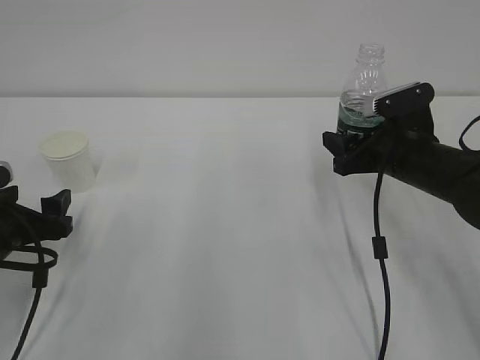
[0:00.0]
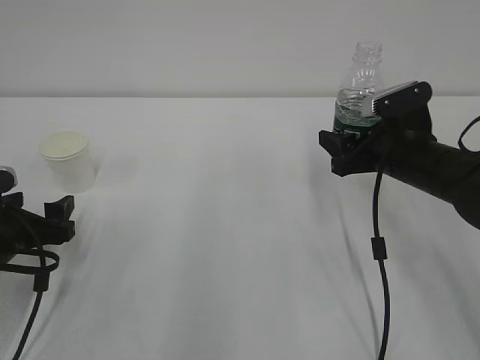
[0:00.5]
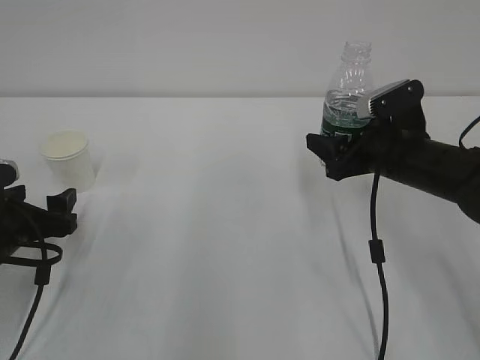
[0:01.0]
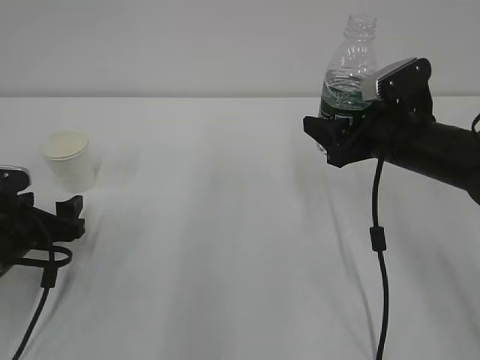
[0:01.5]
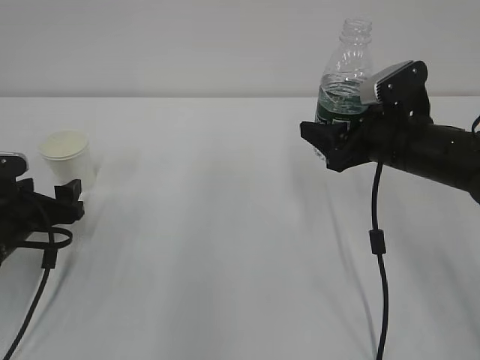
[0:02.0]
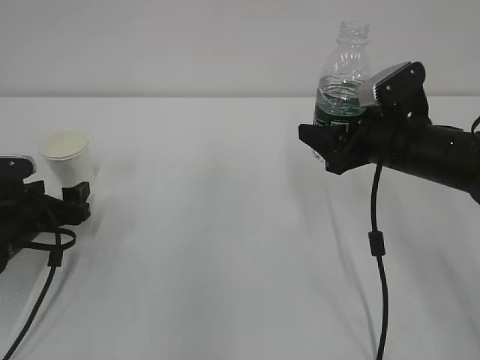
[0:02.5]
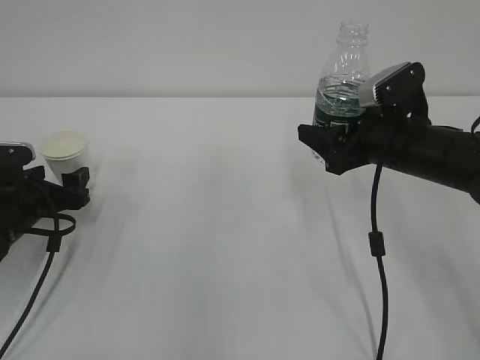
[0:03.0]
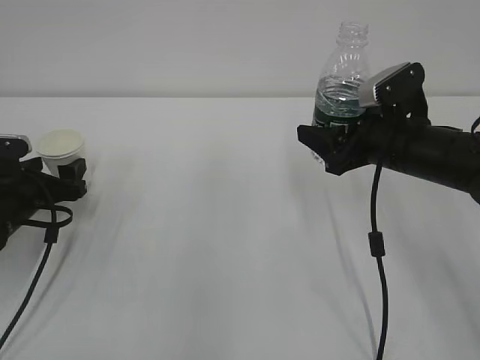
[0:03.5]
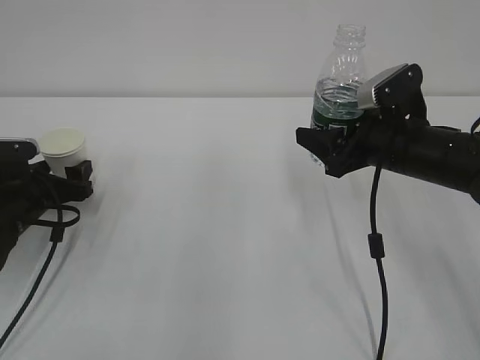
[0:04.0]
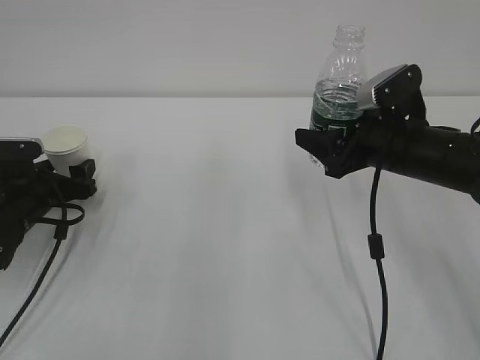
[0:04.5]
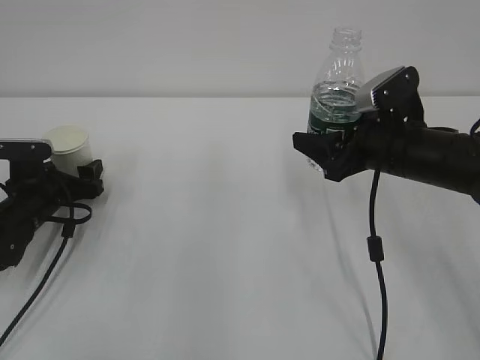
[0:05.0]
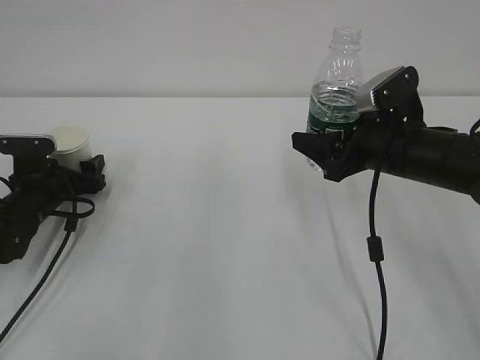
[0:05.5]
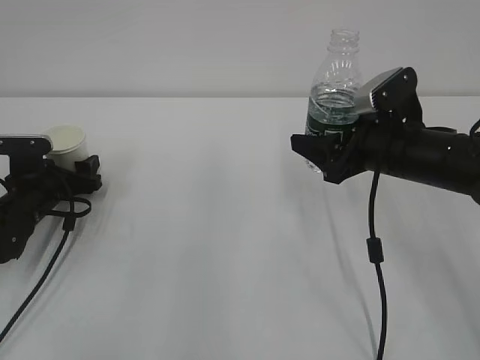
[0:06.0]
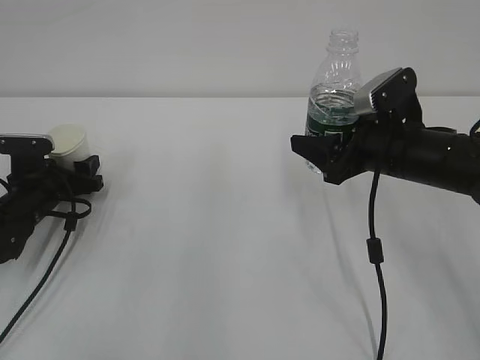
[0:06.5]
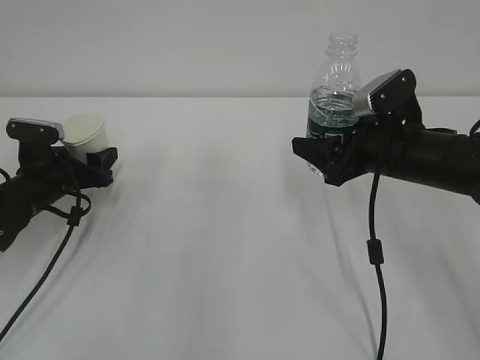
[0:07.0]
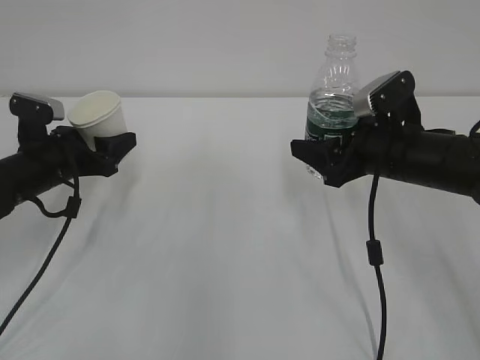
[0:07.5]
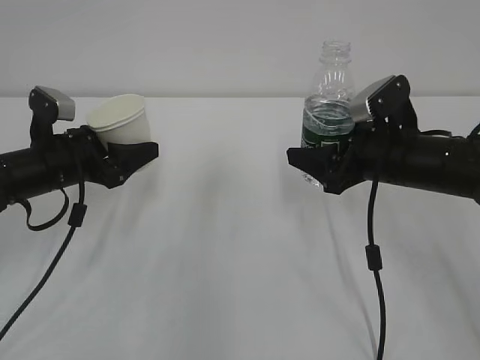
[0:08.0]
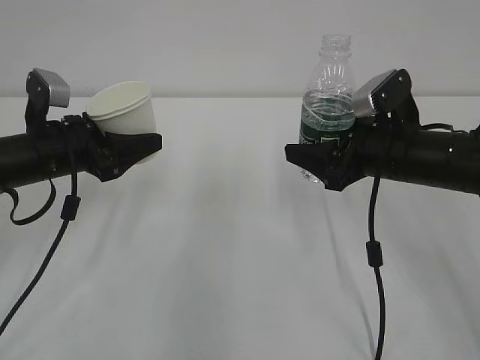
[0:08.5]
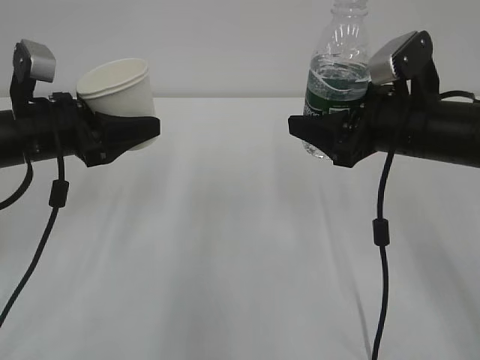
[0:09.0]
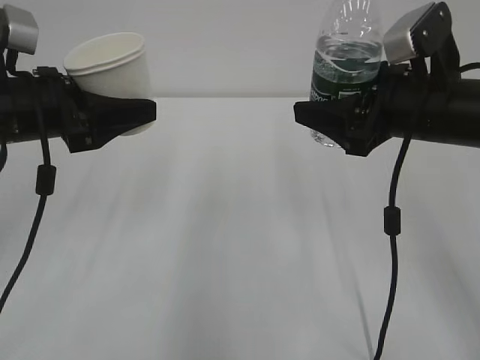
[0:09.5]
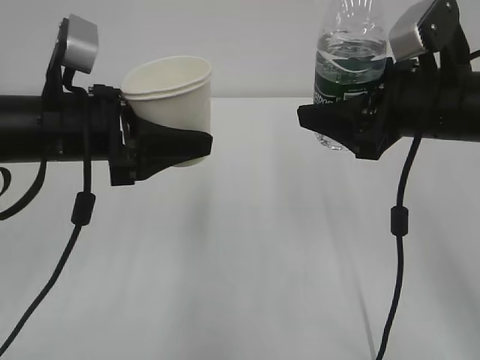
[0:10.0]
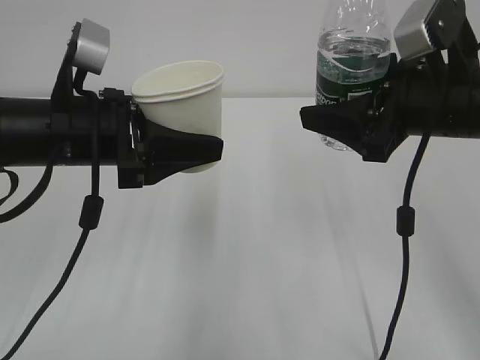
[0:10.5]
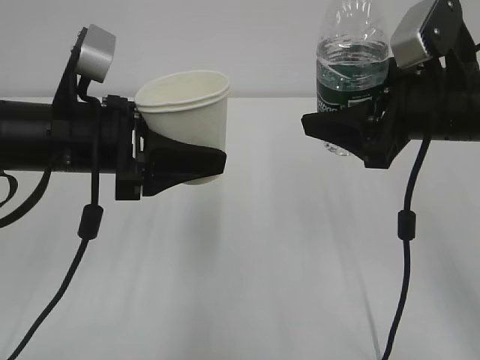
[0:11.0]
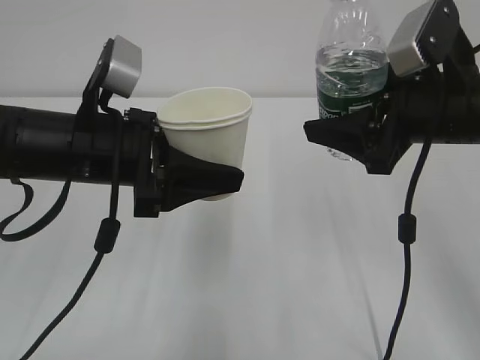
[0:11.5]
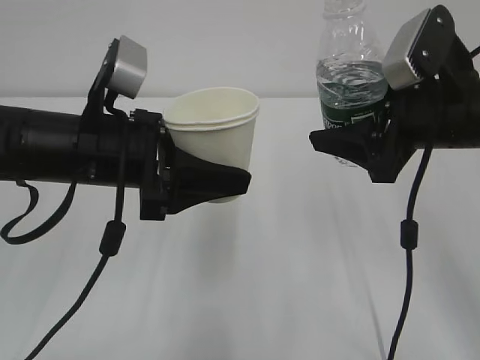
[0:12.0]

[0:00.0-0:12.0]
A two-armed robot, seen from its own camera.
0:00.0 to 0:02.0: The left gripper moves about 5 cm.
0:02.0 to 0:04.0: The left gripper travels forward by about 5 cm.
0:04.0 to 0:06.0: The grippers make only small movements.
0:06.0 to 0:08.0: The left gripper heads upward and to the right, covering about 10 cm.
0:08.0 to 0:10.0: The left gripper goes some 15 cm upward, to the right and backward, while the right gripper goes about 10 cm upward.

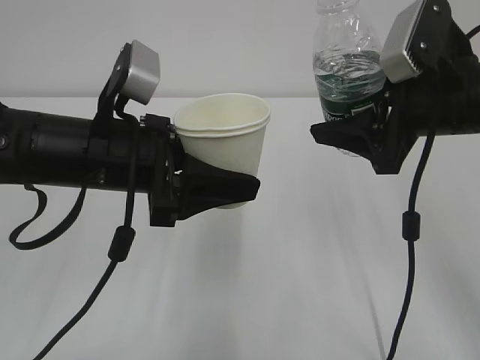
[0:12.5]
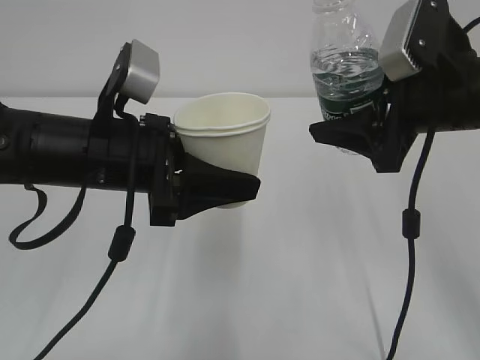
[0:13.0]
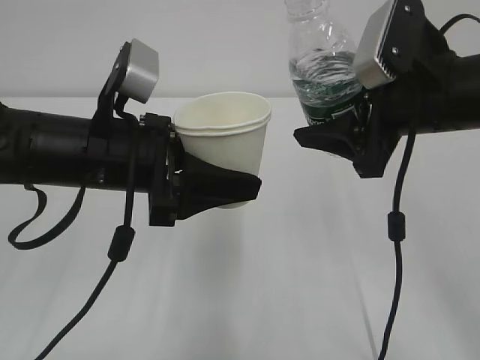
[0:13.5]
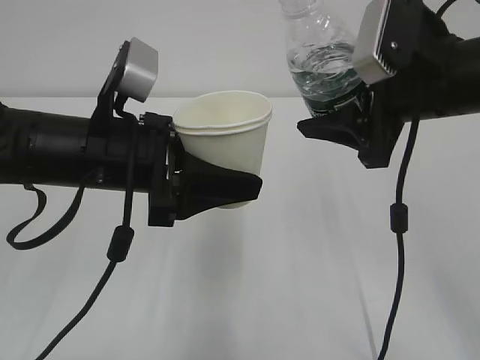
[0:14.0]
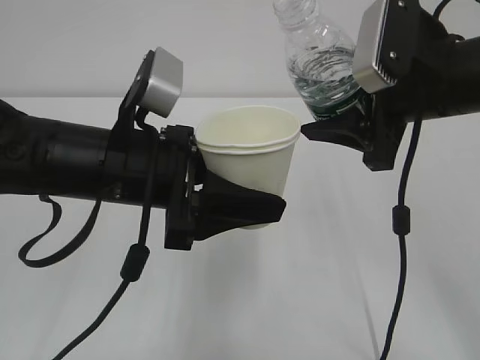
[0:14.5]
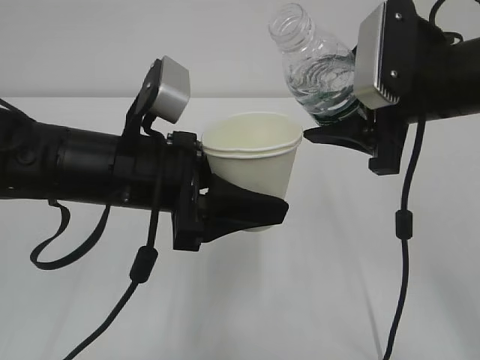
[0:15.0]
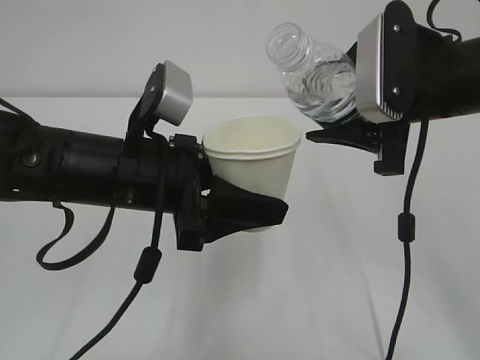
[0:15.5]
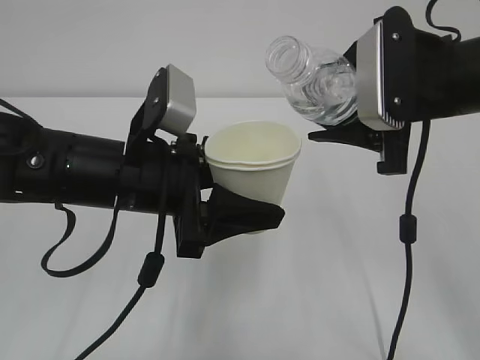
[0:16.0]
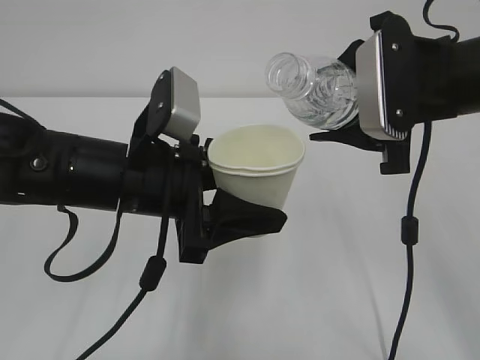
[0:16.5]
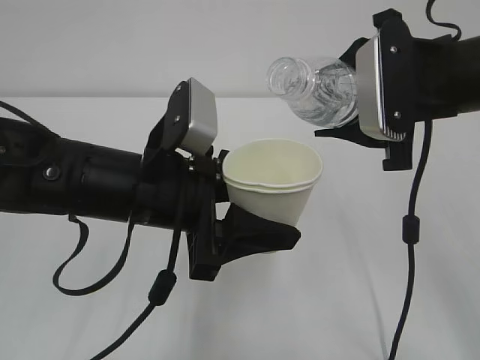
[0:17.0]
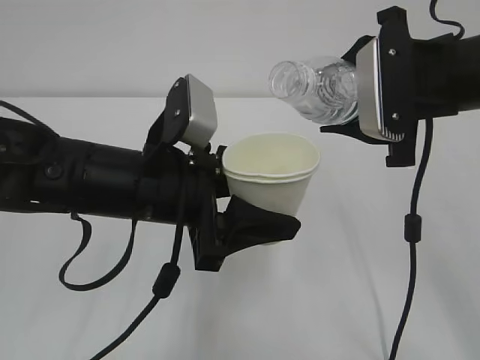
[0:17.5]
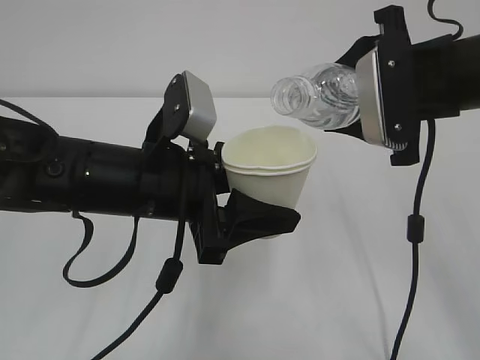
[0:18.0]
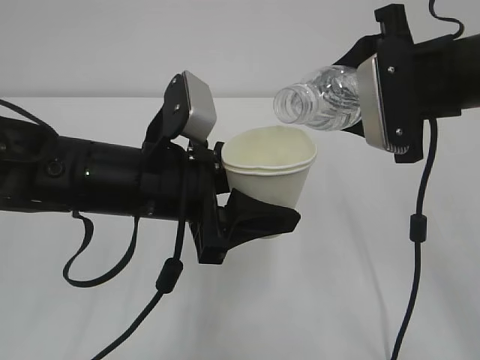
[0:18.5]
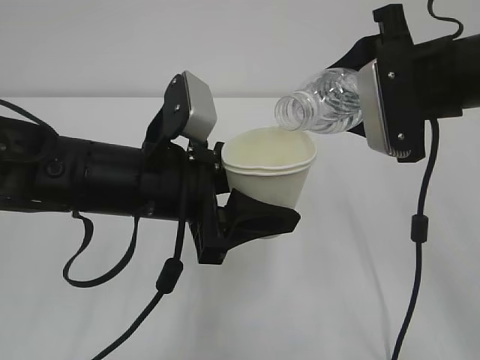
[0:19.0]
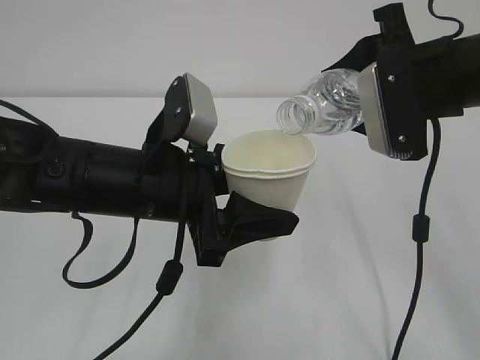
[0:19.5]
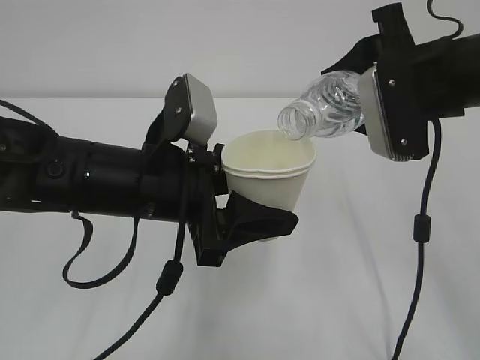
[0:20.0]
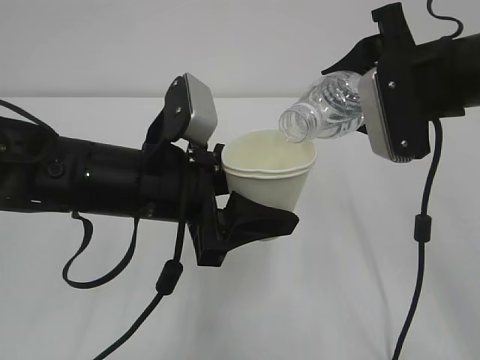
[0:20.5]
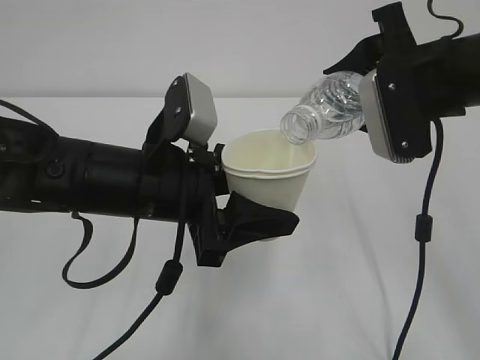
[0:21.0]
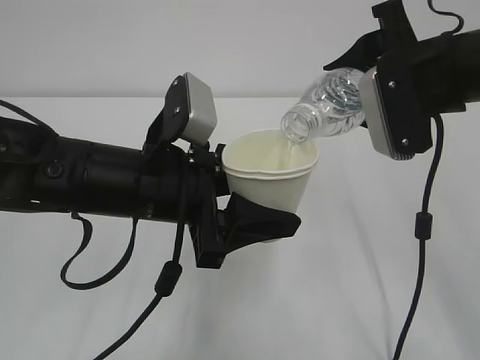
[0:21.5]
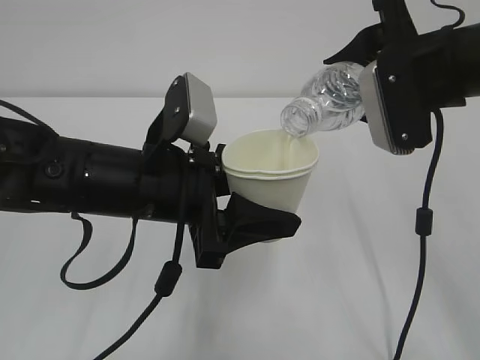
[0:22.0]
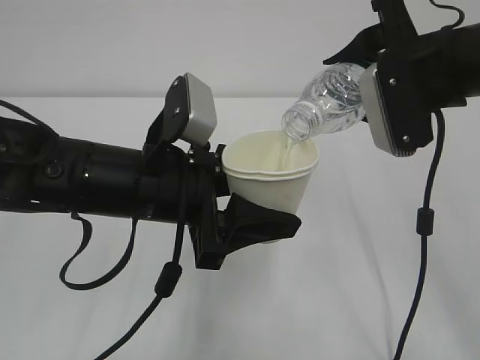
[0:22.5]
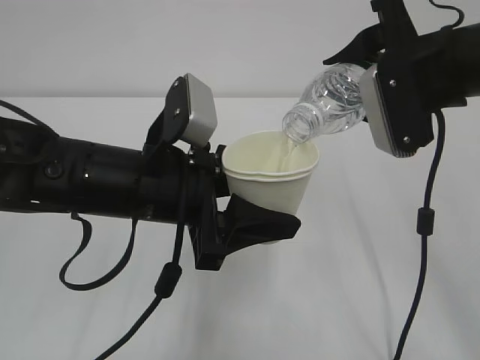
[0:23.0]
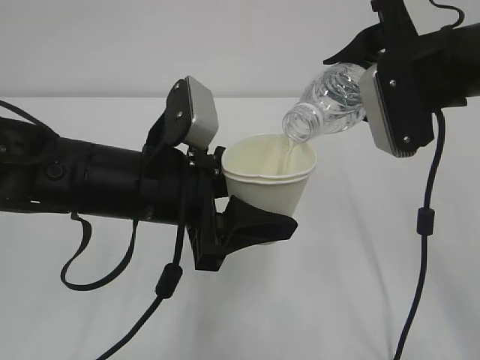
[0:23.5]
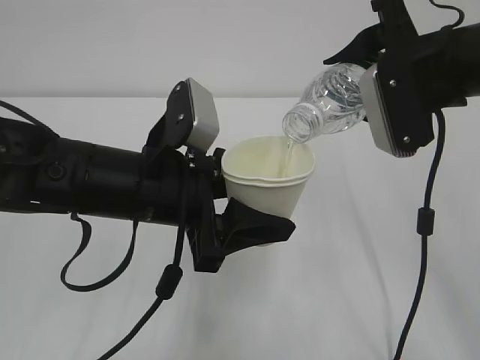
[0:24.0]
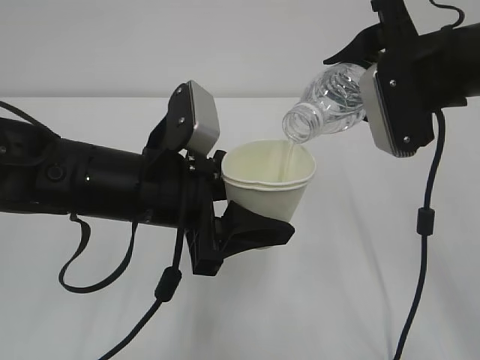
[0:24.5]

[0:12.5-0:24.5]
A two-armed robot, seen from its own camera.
0:16.5 to 0:18.5: There are only small adjustments of the grippers.
0:18.5 to 0:20.5: The grippers make only small movements.
0:20.5 to 0:22.5: Both grippers stay about where they are.
0:22.5 to 0:24.5: Both grippers stay put.

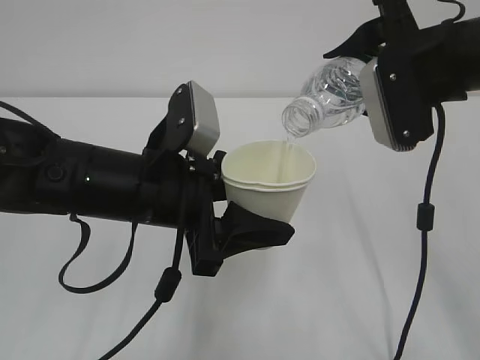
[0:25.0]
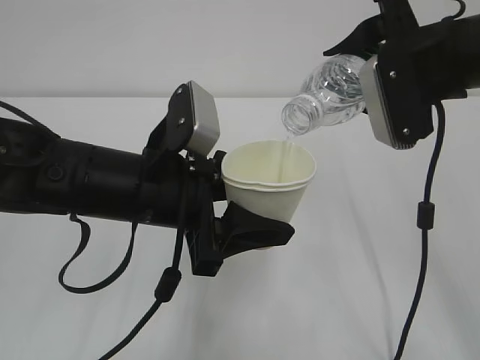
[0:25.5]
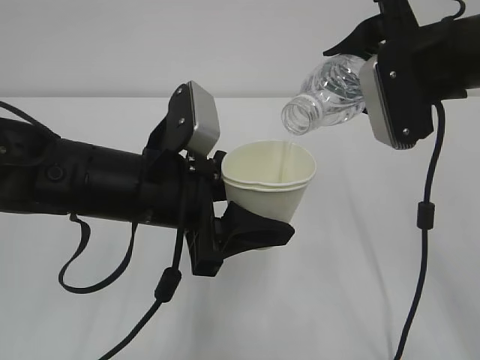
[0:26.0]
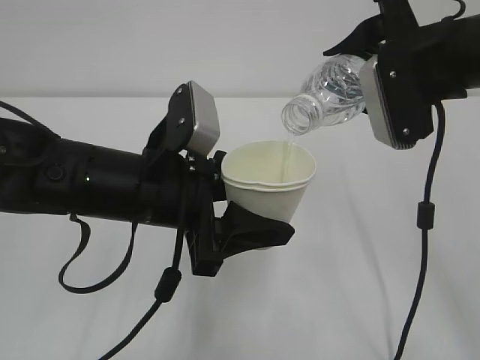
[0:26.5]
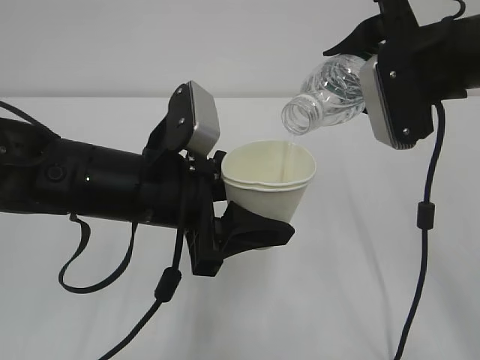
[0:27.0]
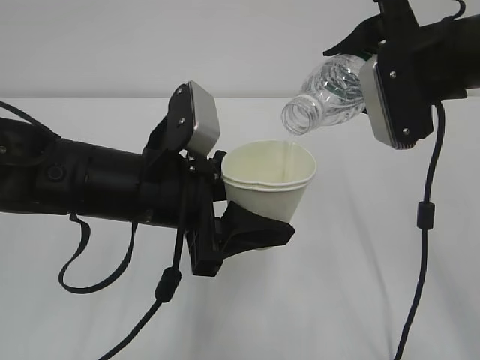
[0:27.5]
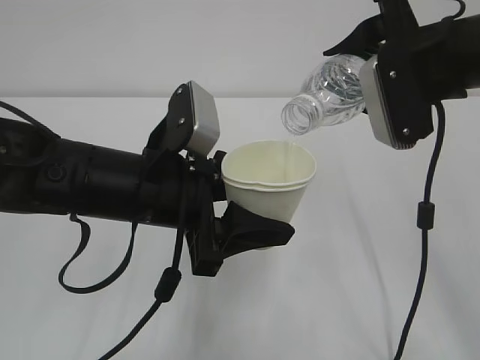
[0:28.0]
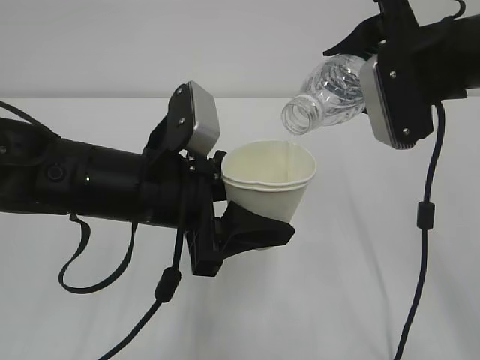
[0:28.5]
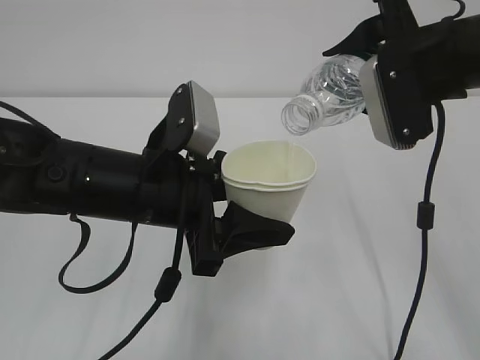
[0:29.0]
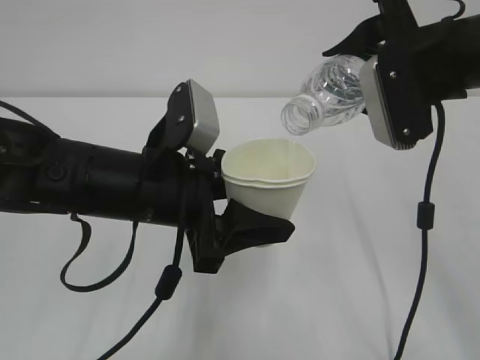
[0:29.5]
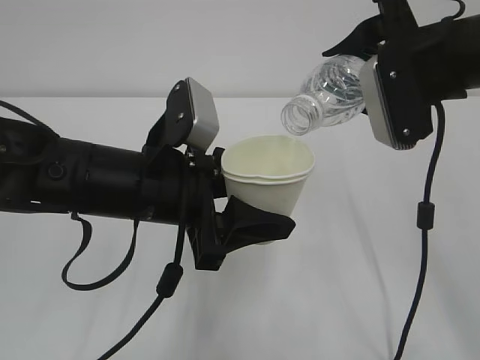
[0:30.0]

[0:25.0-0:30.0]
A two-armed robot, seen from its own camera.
0:25.0 to 0:30.0: Both grippers stay put.
